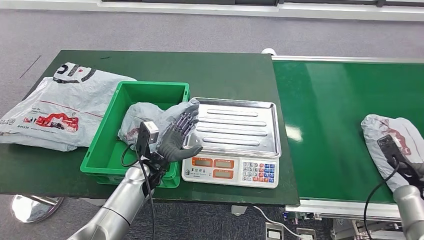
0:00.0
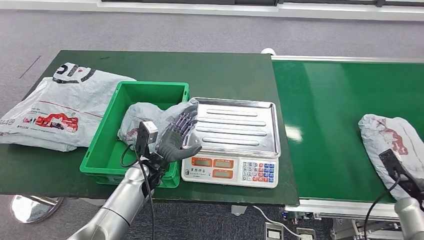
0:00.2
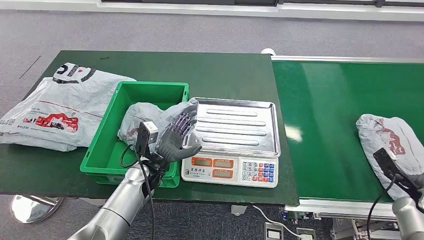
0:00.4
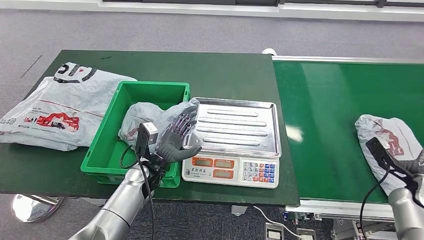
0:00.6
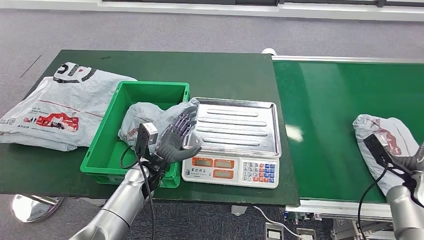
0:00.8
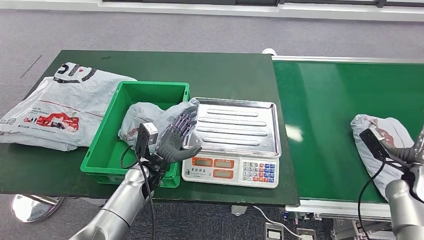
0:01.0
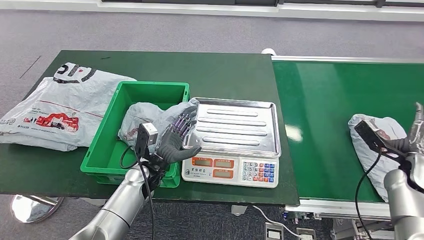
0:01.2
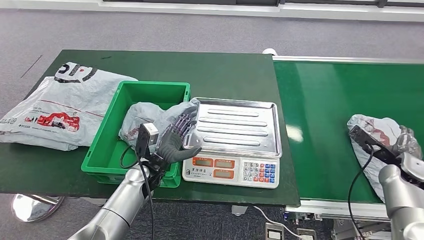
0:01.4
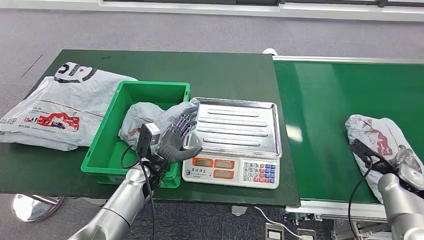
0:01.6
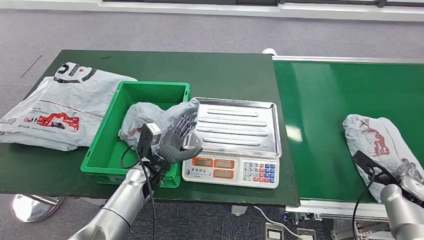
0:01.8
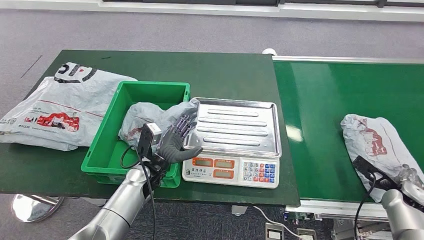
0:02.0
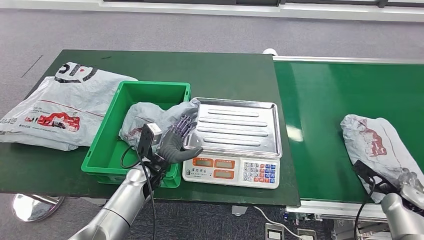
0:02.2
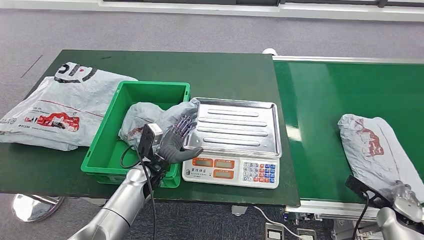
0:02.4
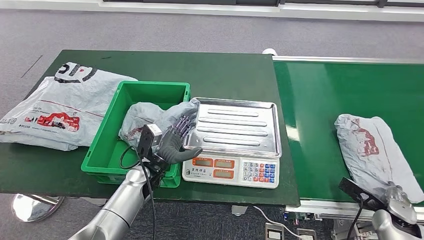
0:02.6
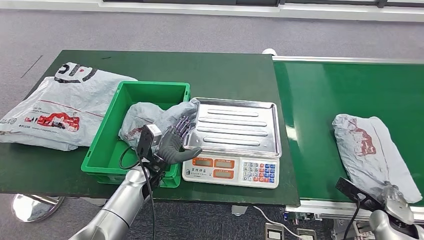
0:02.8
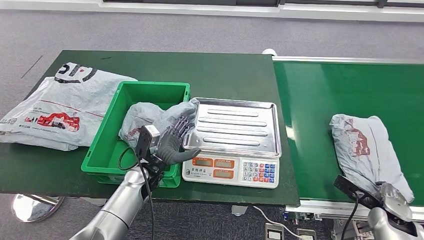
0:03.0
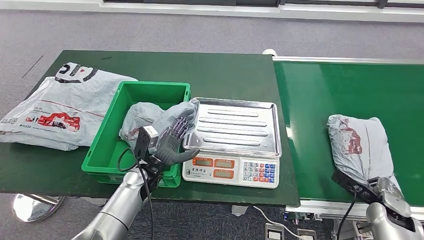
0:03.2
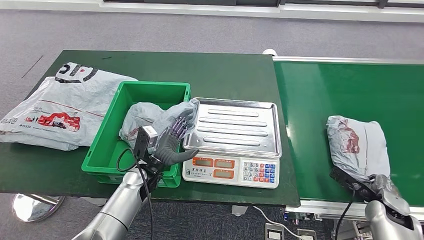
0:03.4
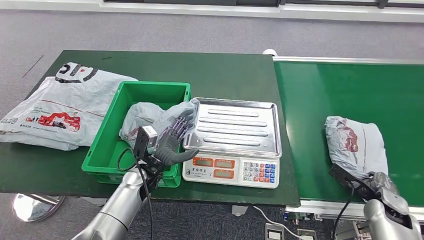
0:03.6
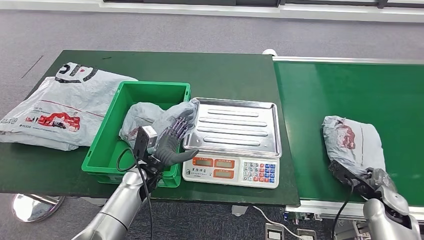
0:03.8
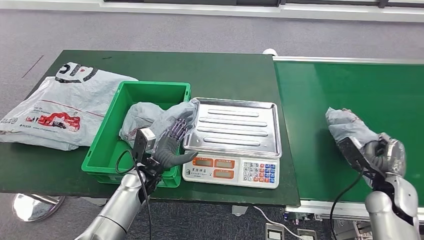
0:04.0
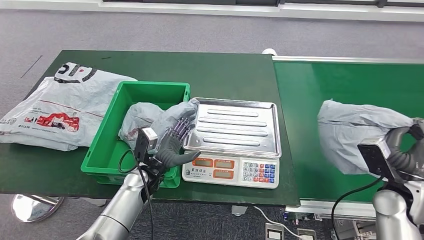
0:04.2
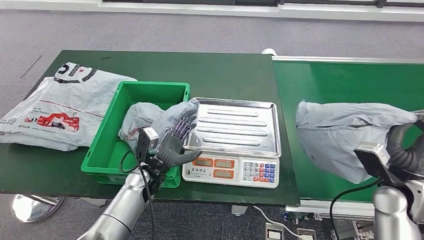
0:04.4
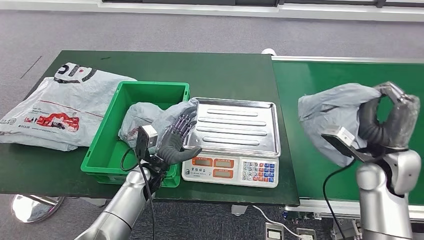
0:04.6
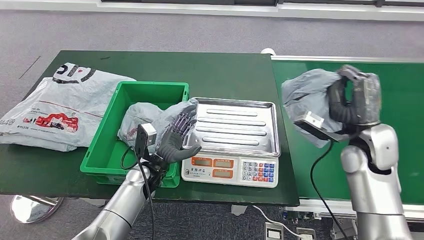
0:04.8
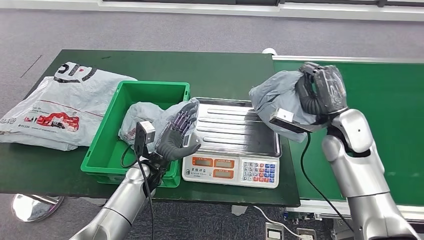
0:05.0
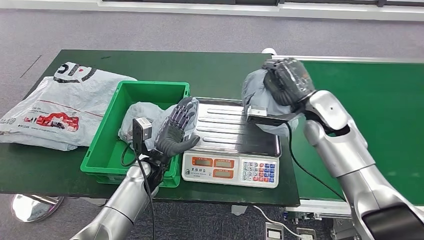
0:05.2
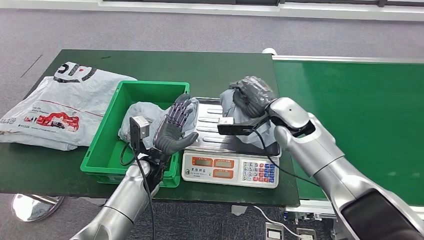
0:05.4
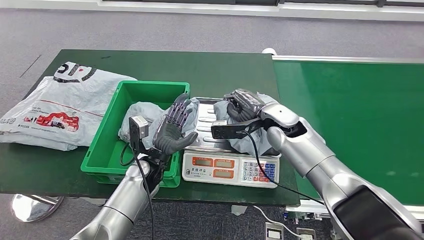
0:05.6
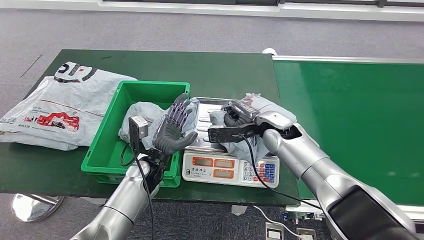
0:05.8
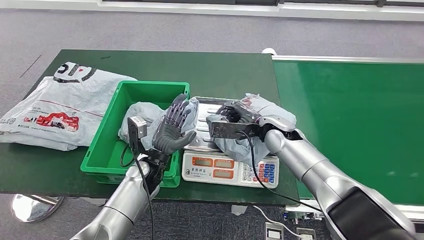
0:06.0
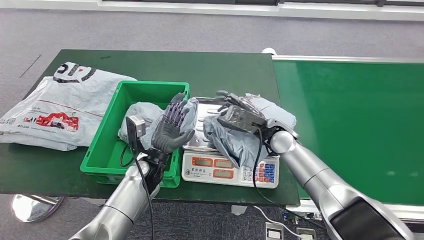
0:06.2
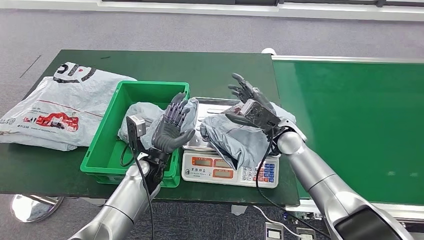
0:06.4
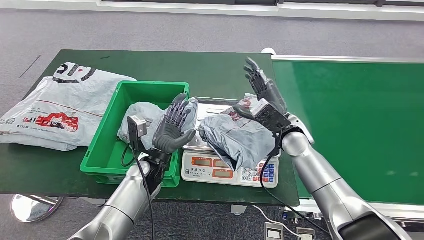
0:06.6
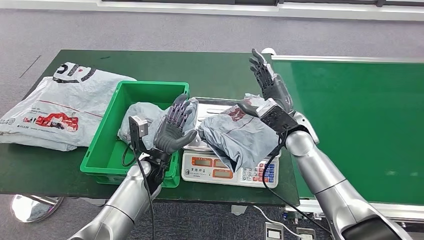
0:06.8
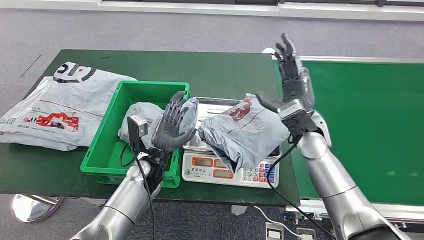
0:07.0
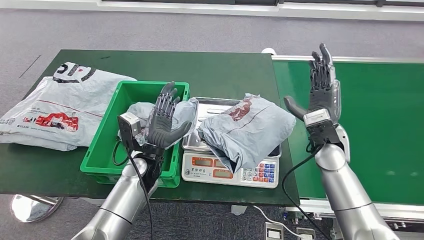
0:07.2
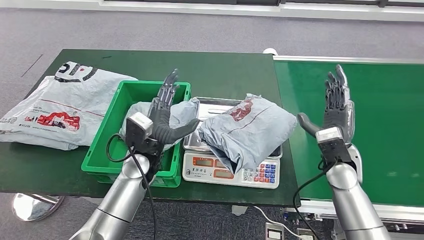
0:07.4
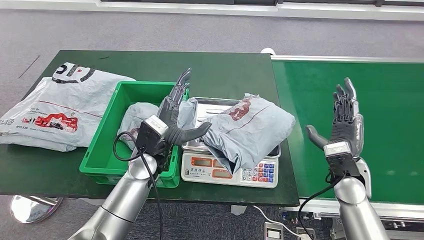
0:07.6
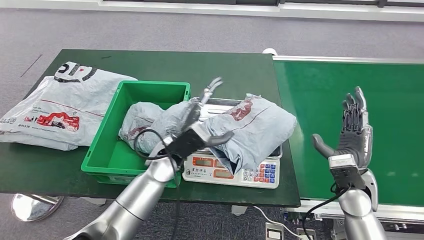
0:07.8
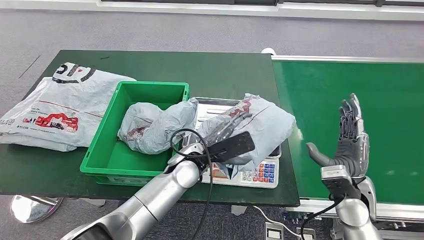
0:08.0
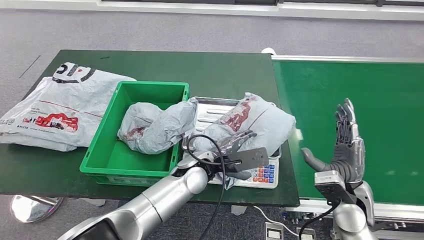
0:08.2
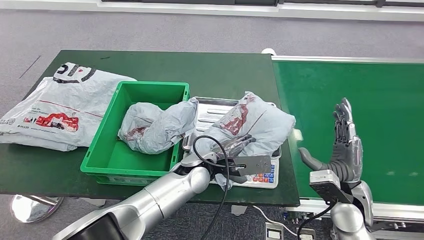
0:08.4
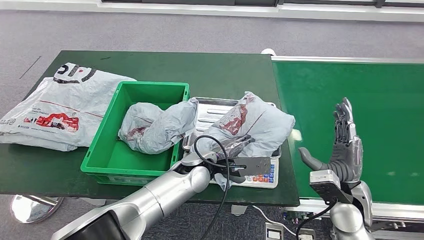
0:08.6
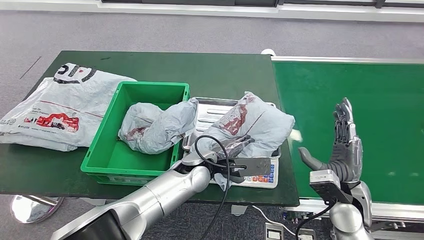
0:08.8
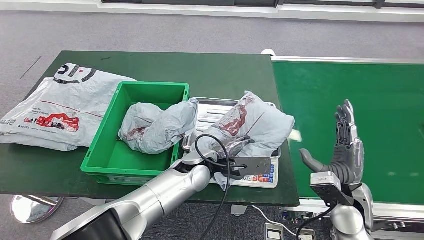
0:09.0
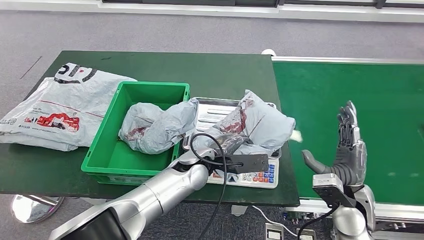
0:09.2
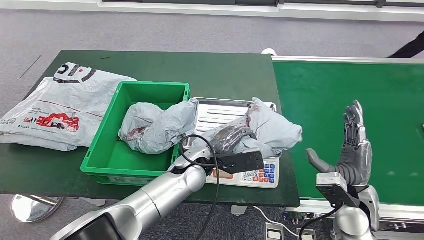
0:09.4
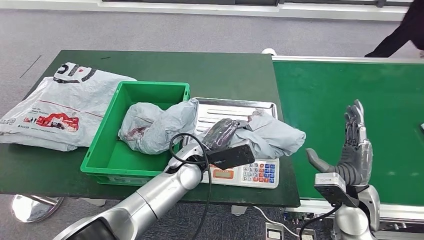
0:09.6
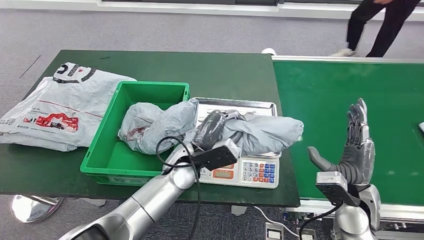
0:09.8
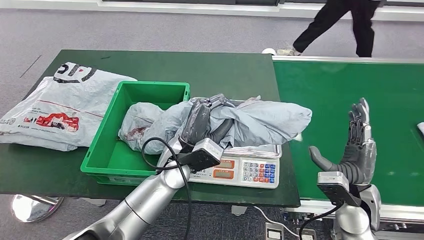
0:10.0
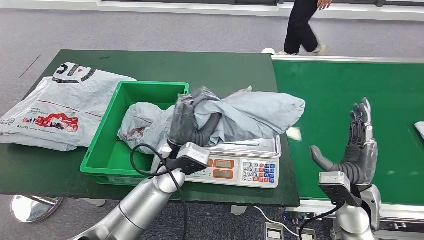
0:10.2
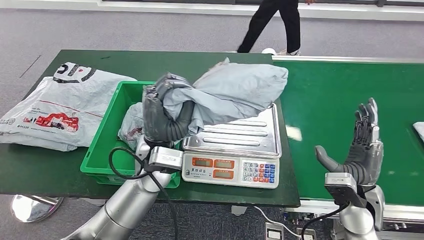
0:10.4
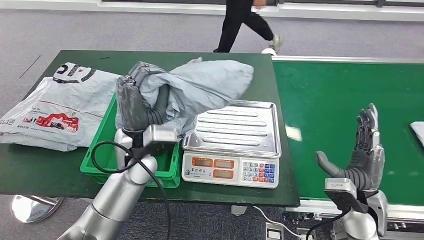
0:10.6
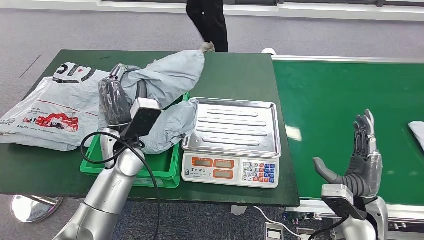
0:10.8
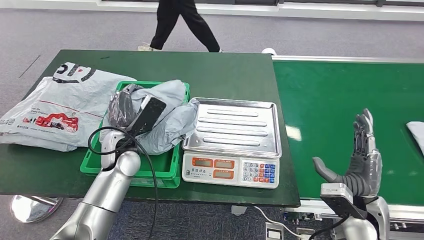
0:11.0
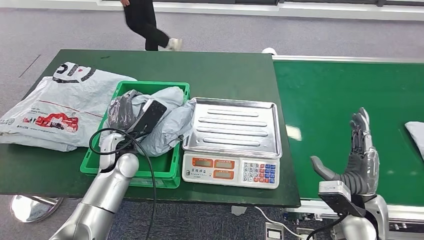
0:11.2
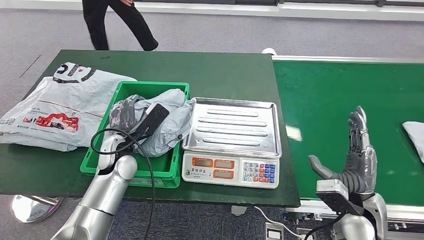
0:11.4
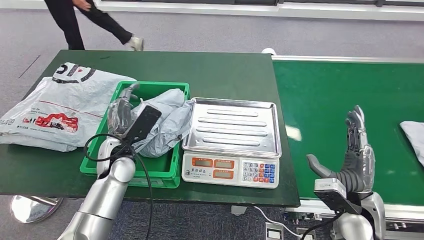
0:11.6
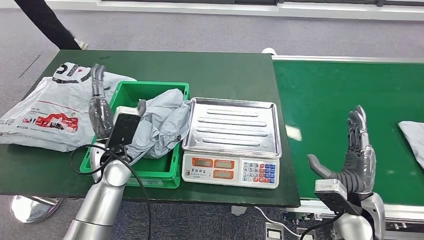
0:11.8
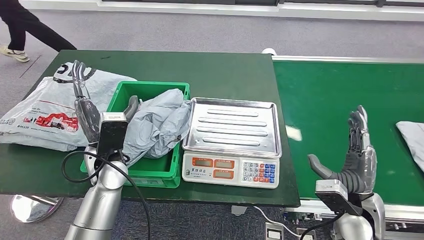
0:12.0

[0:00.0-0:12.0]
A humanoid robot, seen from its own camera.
Step, 0:01.4 to 0:04.2: Pick up the parcel from the conveyor belt.
Step, 0:04.4 to 0:07.0: Place the parcel onto the inbound machine.
Step, 0:07.4 to 0:10.6: Pick up the parcel from the inbound machine.
0:00.0 to 0:01.6: The right hand shifts by approximately 5 cm.
0:01.6 to 0:03.0: The right hand heads backward, covering some 10 cm.
0:03.0 to 0:04.4: The right hand shifts some 15 cm upward.

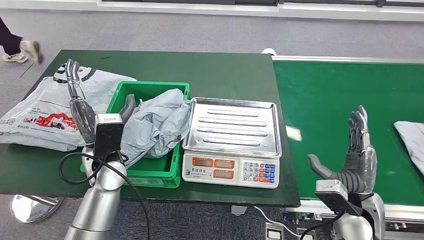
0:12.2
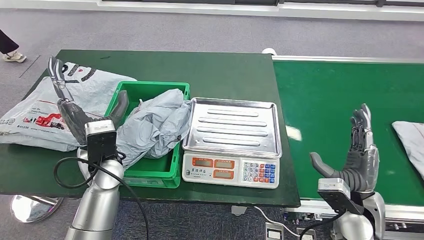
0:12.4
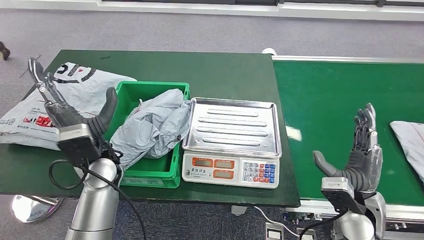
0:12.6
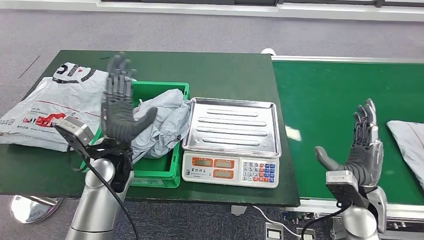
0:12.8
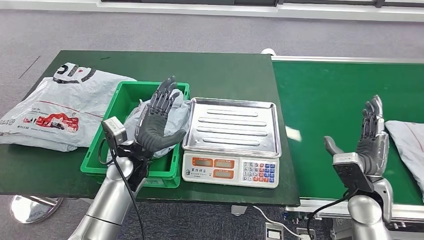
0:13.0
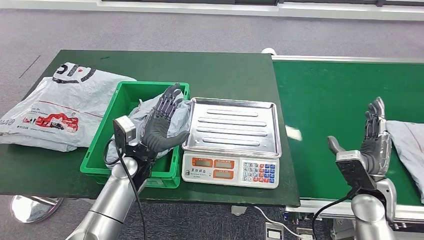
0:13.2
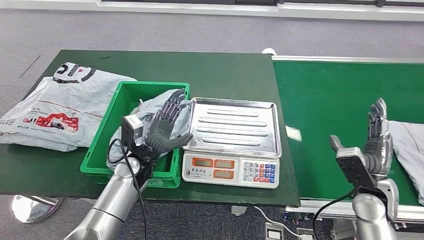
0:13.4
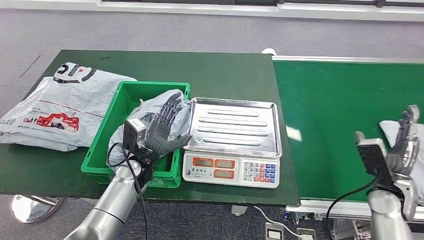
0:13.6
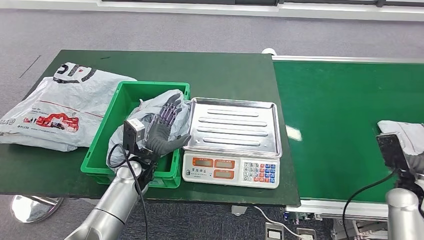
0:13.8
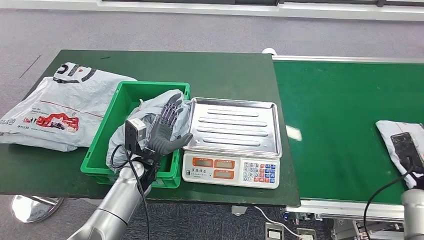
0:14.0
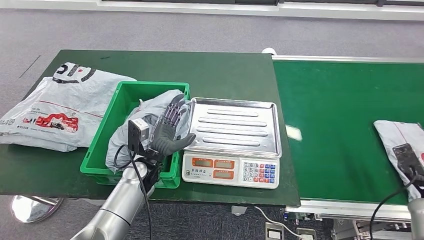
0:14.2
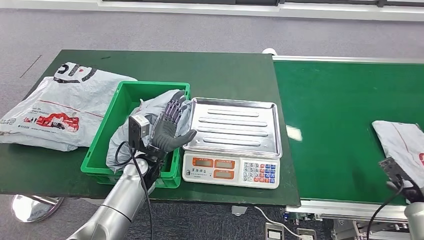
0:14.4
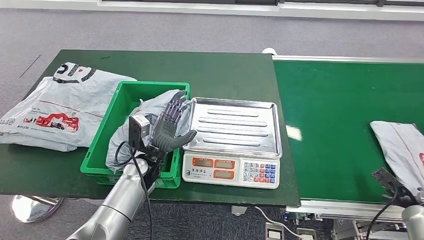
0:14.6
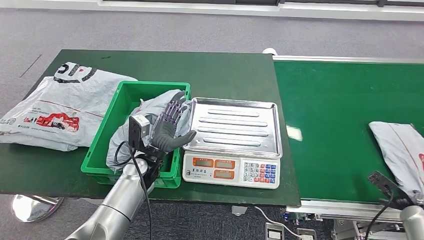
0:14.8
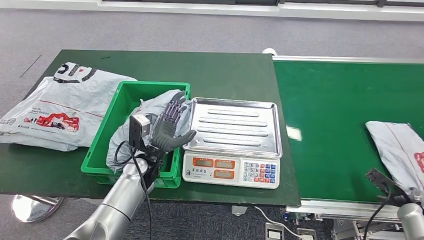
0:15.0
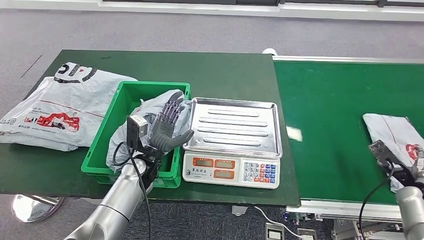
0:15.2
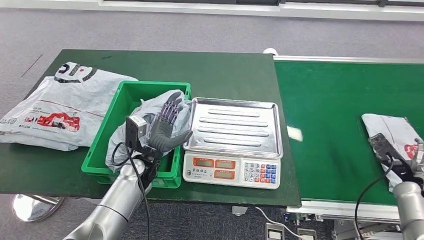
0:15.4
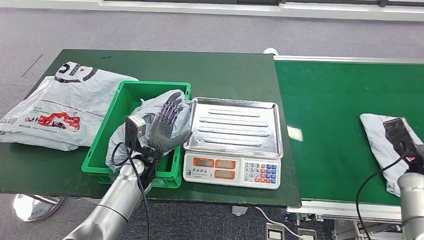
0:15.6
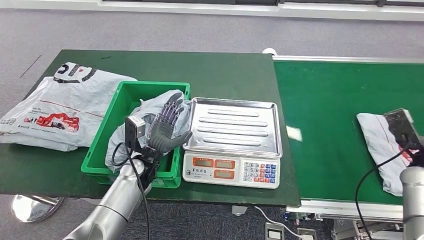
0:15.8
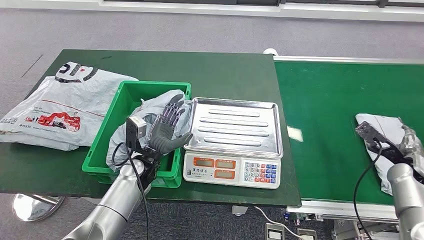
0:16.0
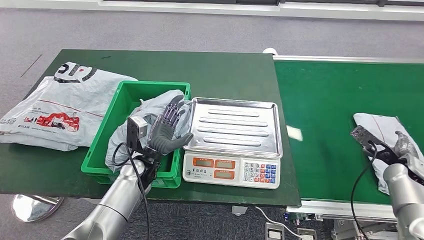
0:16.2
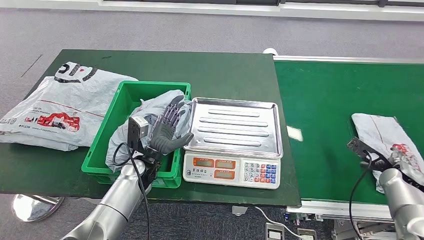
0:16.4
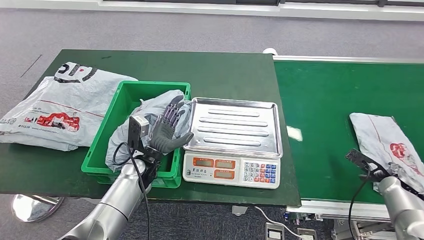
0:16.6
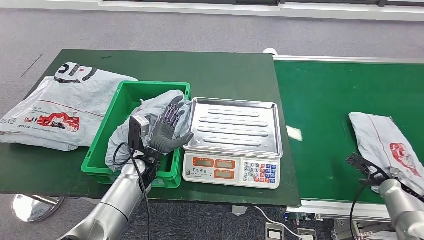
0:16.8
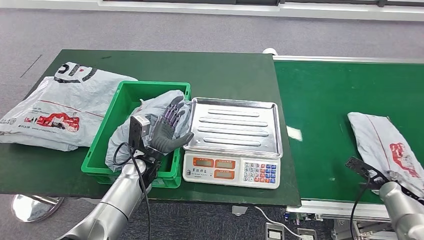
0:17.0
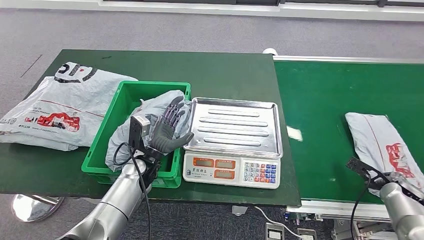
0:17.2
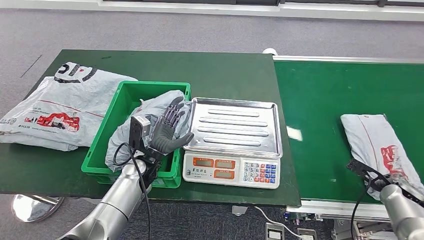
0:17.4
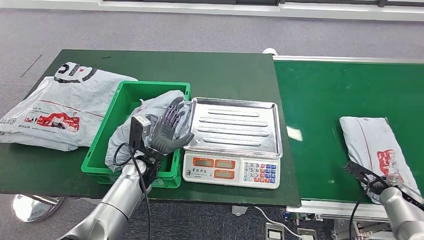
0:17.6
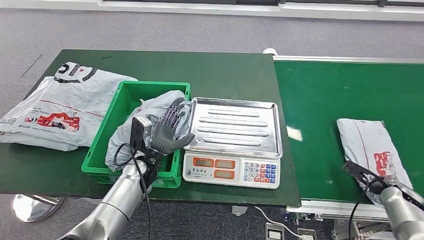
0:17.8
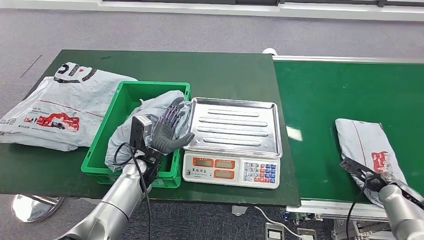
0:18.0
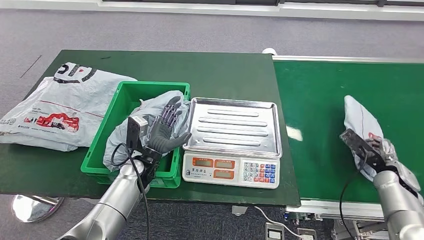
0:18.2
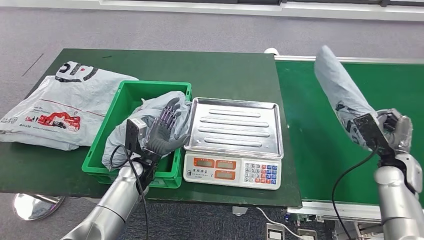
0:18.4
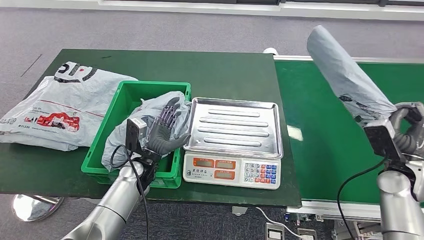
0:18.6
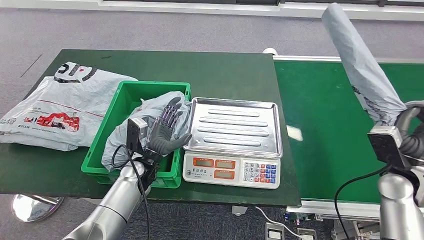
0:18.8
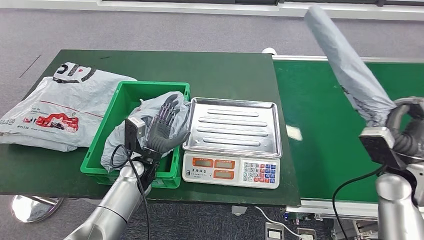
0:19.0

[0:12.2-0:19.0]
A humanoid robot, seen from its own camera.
0:12.2 to 0:13.6: The left hand is displaced downward by about 10 cm; the right hand heads to the right, covering about 10 cm.
0:13.6 to 0:15.0: The right hand heads to the right and downward, covering roughly 15 cm.
0:15.0 to 0:16.2: The right hand is displaced forward and upward by about 10 cm.
0:16.2 to 0:17.6: The right hand heads downward, covering approximately 5 cm.
0:17.6 to 0:19.0: The right hand goes some 15 cm upward and to the left.
